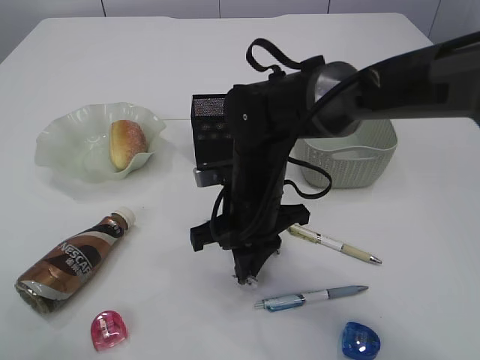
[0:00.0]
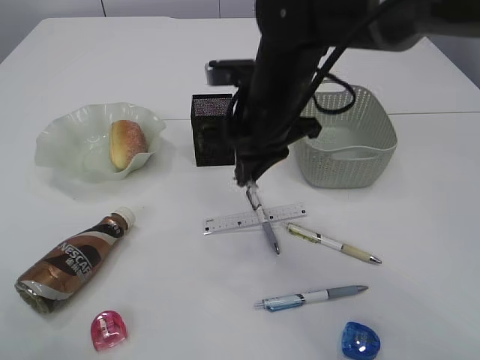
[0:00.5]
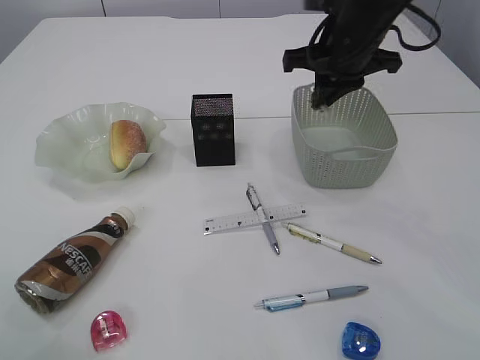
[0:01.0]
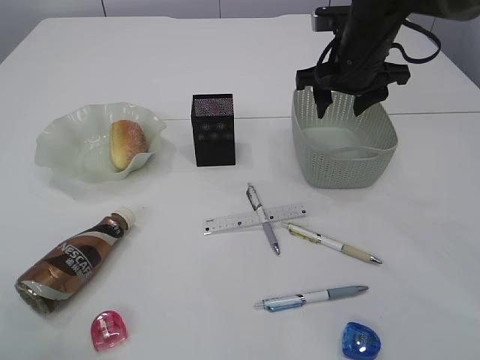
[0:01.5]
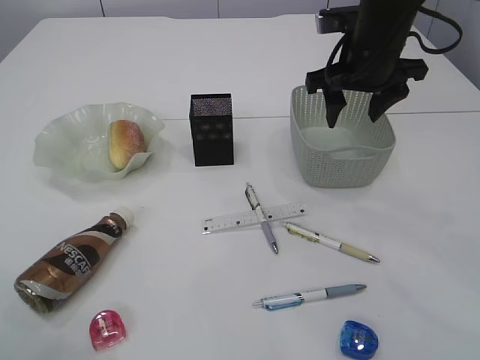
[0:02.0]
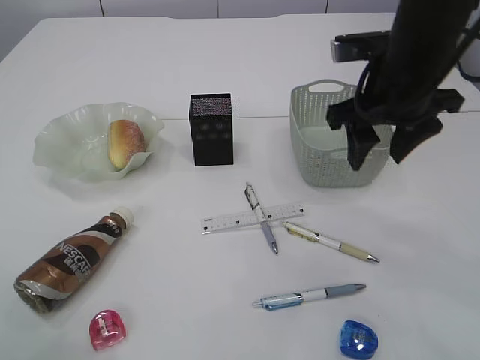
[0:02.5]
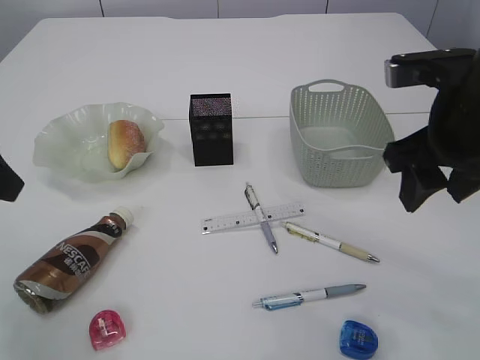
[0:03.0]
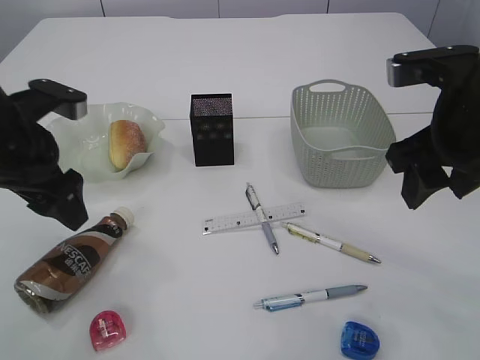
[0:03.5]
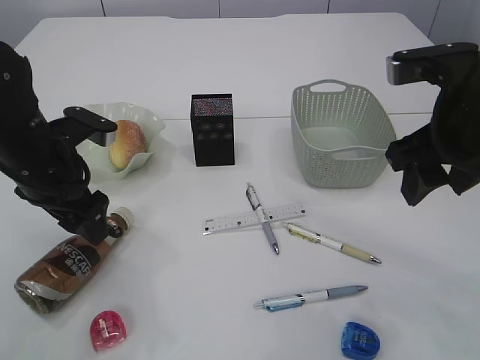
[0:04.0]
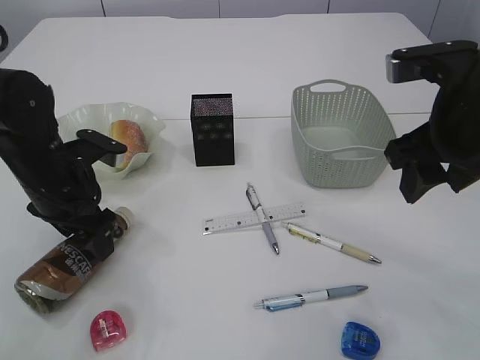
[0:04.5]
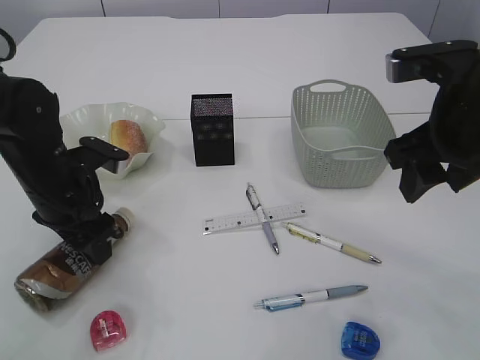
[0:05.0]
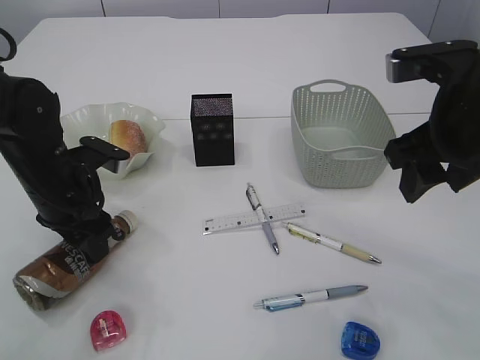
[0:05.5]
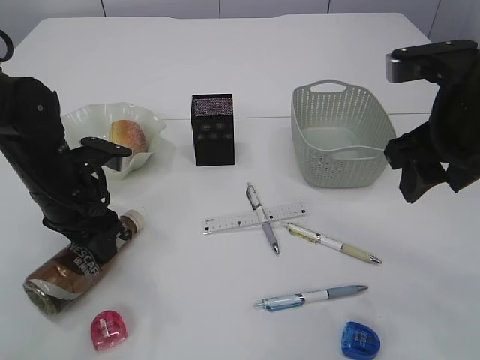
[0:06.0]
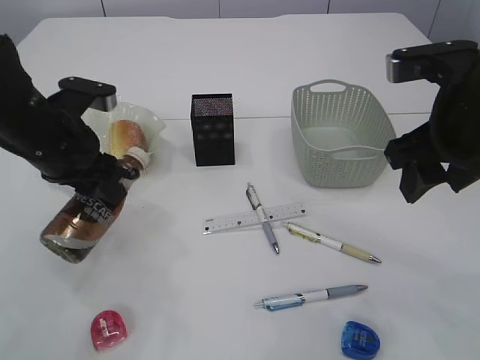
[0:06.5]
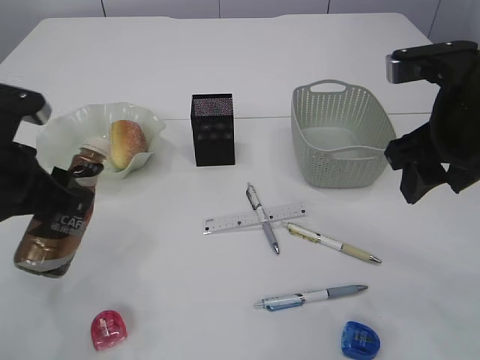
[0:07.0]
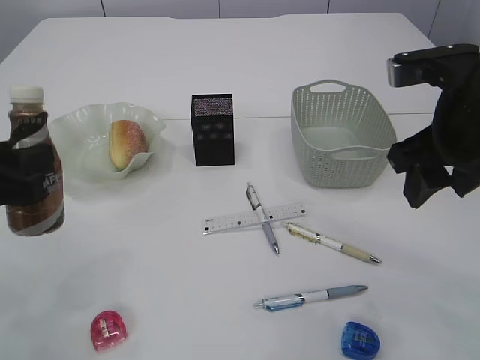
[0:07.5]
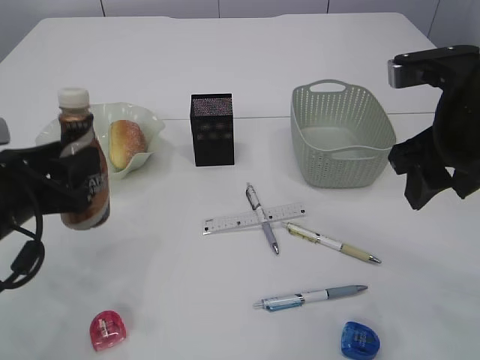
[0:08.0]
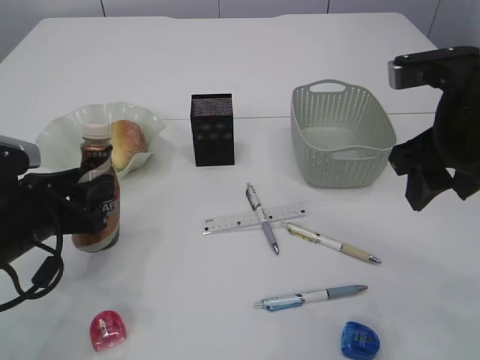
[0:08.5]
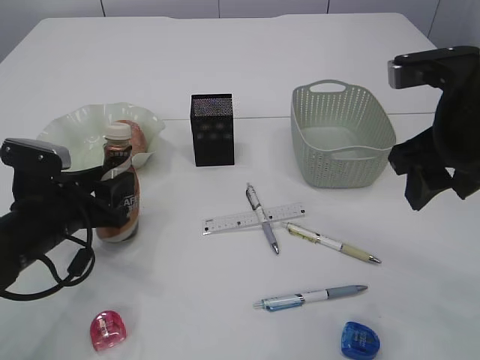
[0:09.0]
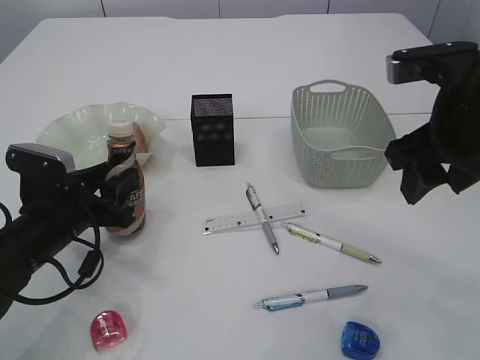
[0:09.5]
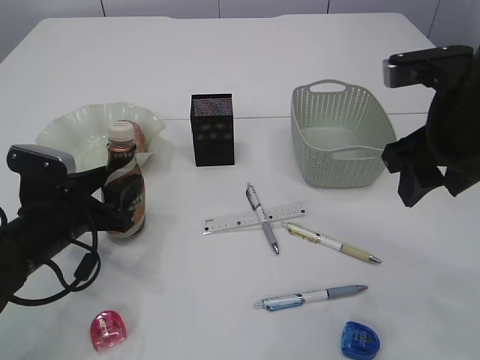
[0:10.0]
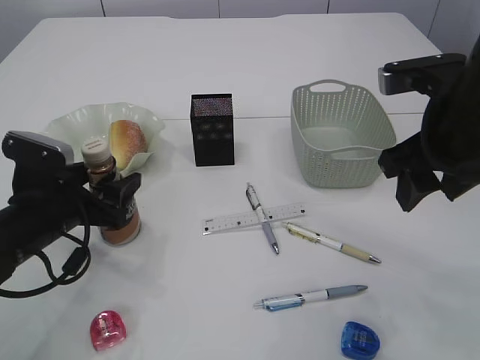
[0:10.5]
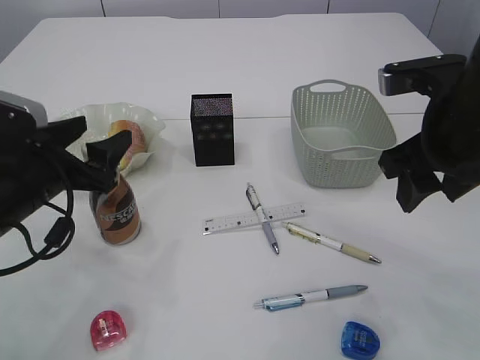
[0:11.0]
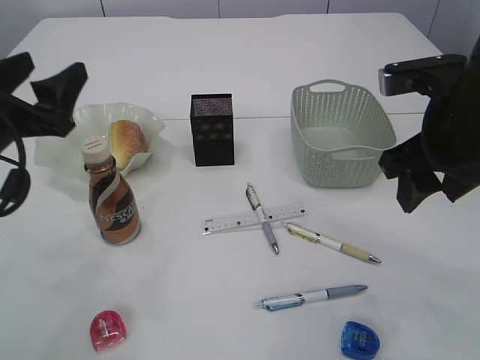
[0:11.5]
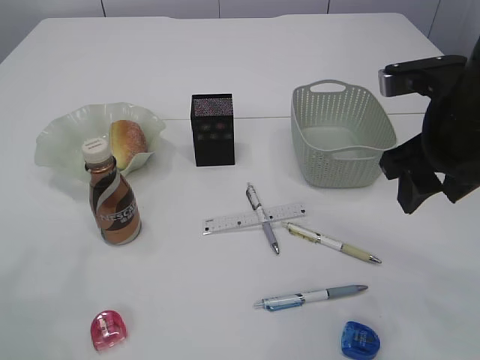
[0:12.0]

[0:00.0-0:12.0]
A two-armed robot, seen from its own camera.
Step, 0:01.0 to 0:02.0: Place the waste paper in the basket.
Step, 0:02.5 to 0:06.5: Pick up the bottle with the left arm.
Step, 0:07.0 to 0:11.0: Place the bottle.
0:00.0 to 0:02.0: The right gripper shifts approximately 20 cm to the right, upward and forward, and opens up.
0:02.0 to 0:04.0: The right gripper goes some 15 cm backward, while the left gripper goes about 20 cm downward and forward, and opens its fingers.
0:04.0 to 0:06.0: The left gripper closes up.
0:06.0 to 0:08.0: The left gripper travels backward by about 10 cm.
0:08.0 to 0:10.0: The left gripper goes approximately 5 cm downward, and opens up.
0:10.0 to 0:12.0: The left gripper heads upward and to the left, covering approximately 20 cm.

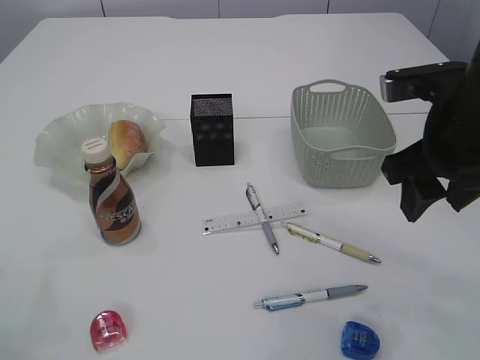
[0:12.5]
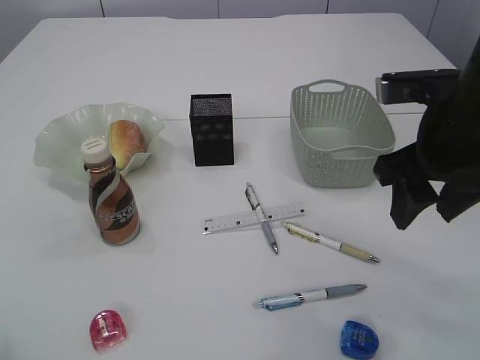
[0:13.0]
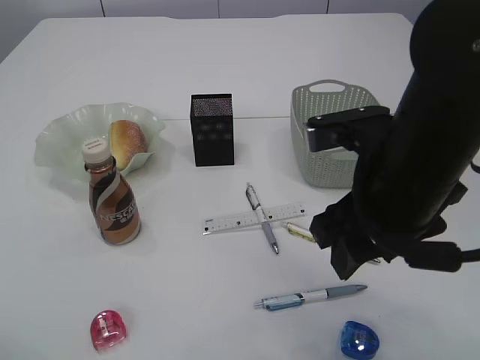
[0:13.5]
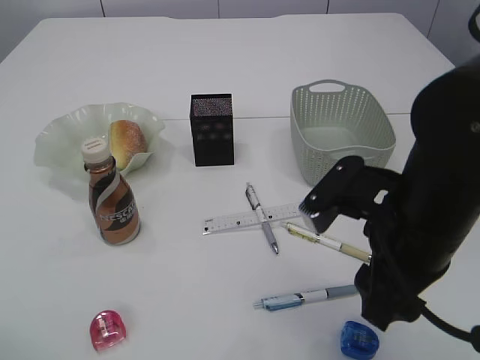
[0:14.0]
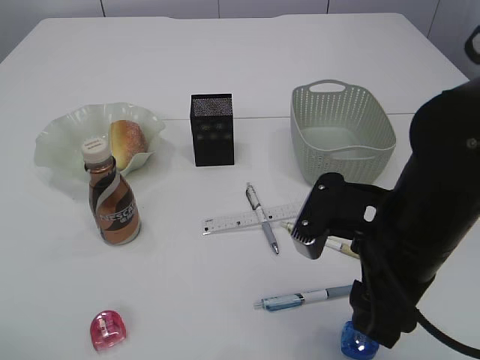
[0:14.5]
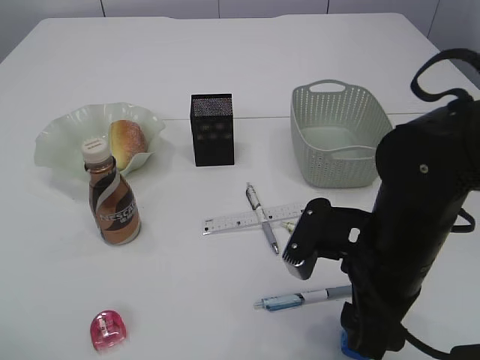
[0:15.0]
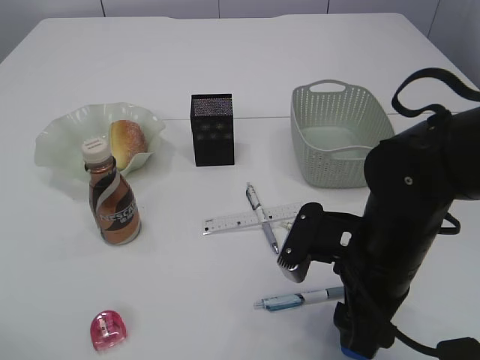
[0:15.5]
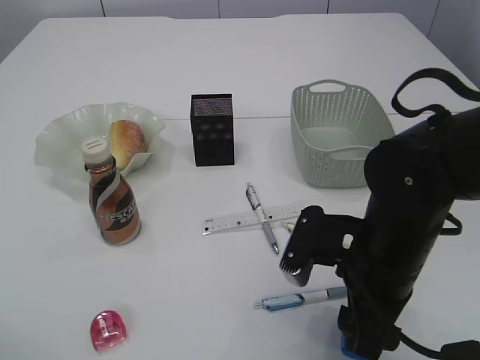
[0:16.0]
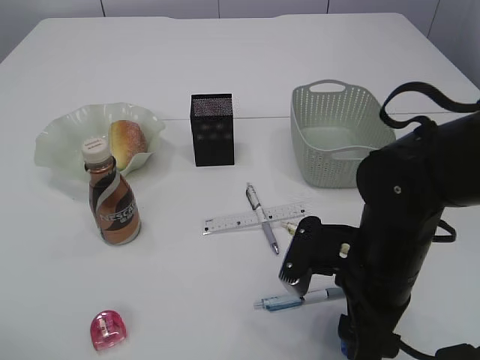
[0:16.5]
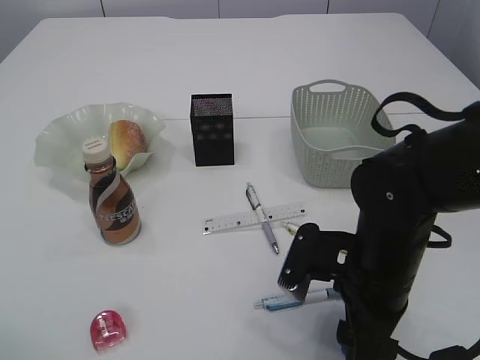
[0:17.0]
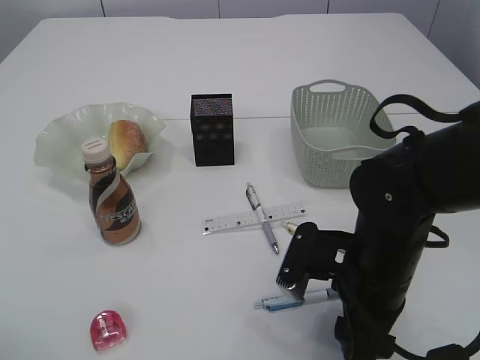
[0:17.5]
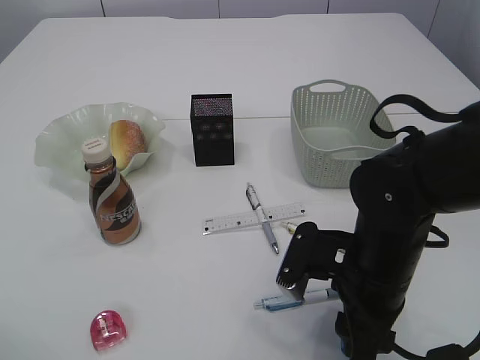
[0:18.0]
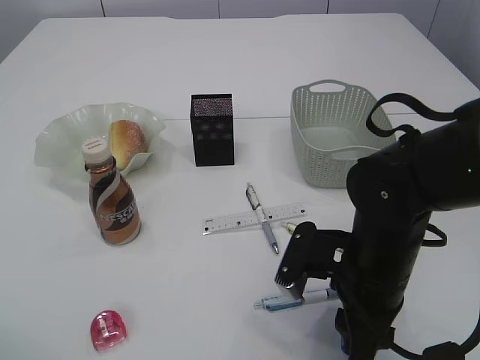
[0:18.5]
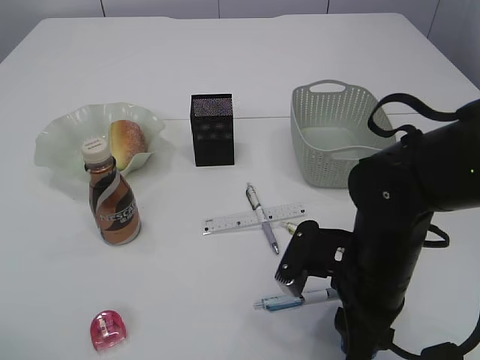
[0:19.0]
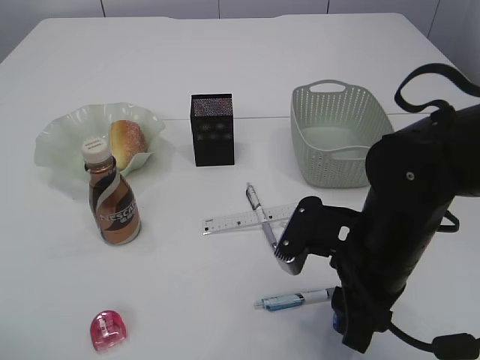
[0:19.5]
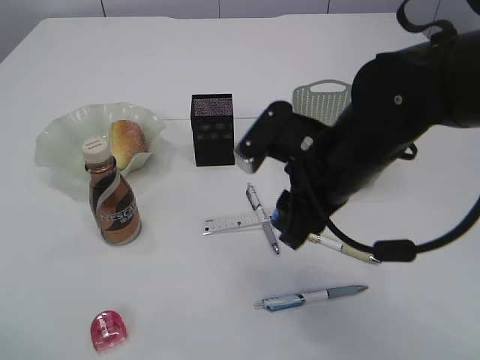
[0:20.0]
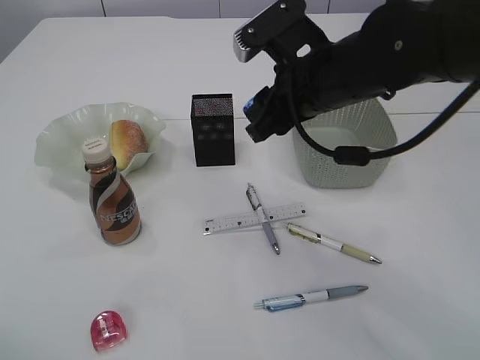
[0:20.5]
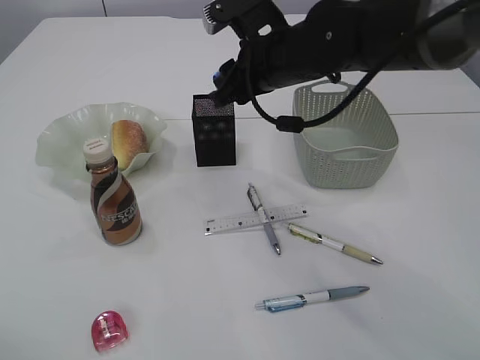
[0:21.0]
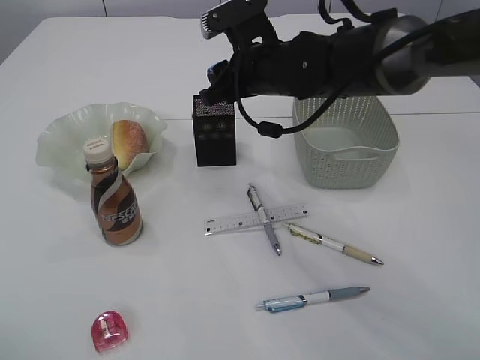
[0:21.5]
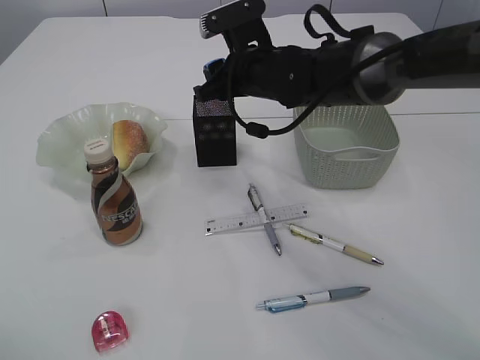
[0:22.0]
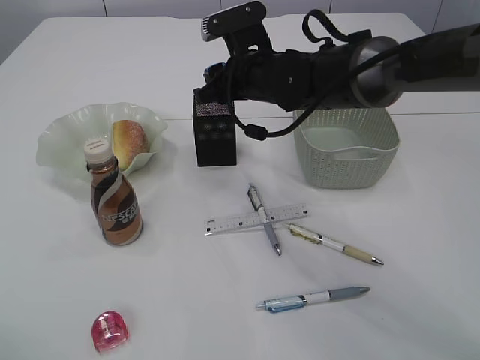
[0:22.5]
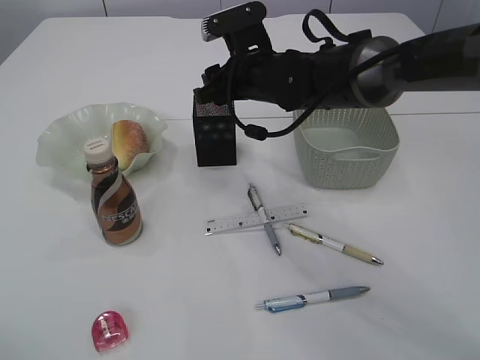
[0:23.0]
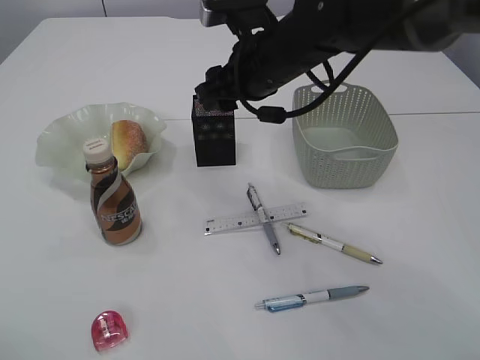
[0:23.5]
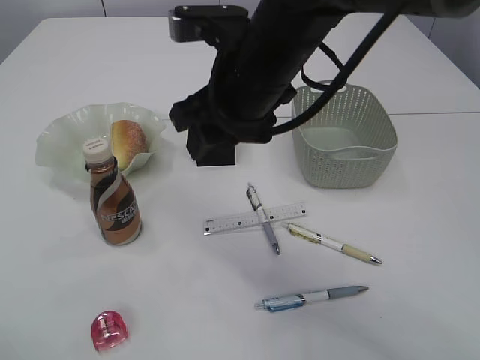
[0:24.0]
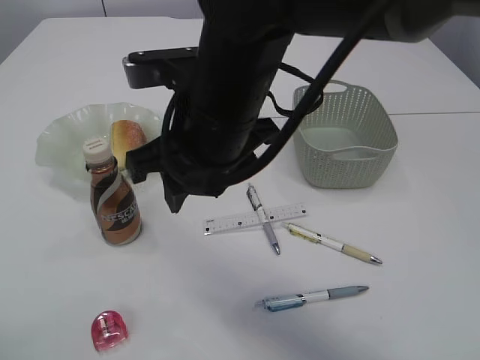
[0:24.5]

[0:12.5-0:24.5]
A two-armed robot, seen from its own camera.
Step, 0:12.5 to 0:19.5: Pick up the blue pencil sharpener.
Step, 0:20.0 to 0:23.5: Place the blue pencil sharpener into the pen holder.
0:12.5 to 0:14.5: The left gripper shifts roughly 5 cm backward. The right gripper heads downward, to the left and backward, covering some 10 cm.
0:14.5 to 0:16.5: The right gripper travels downward by about 5 cm.
0:16.5 to 0:18.5: The right gripper closes.
0:18.5 to 0:20.5: The right gripper goes about 20 cm upward and forward.
0:20.5 to 0:22.5: The right gripper goes some 10 cm forward.
0:22.5 to 0:24.5: The right gripper goes some 20 cm backward and upward.

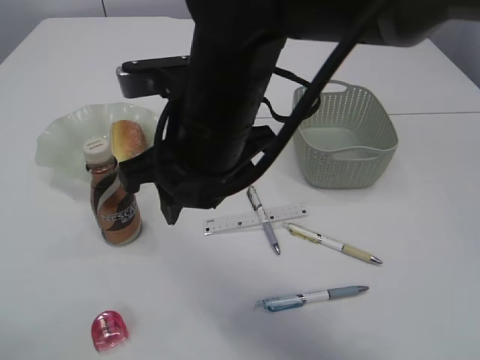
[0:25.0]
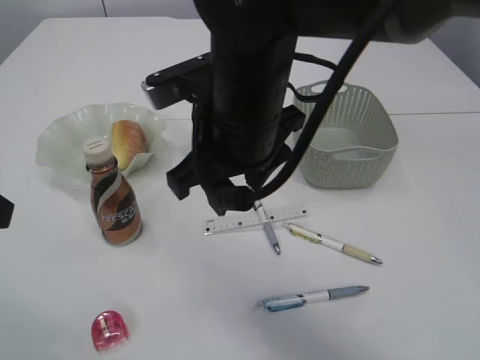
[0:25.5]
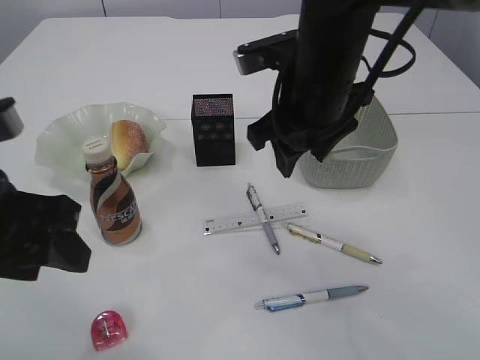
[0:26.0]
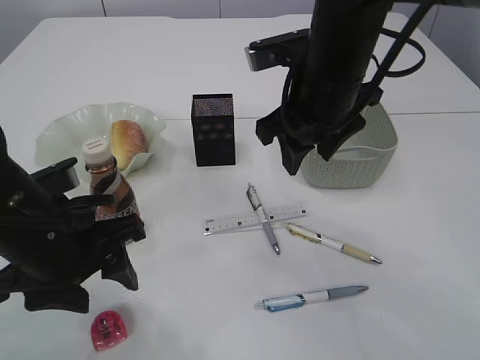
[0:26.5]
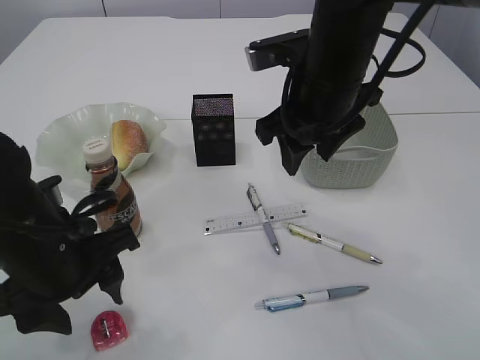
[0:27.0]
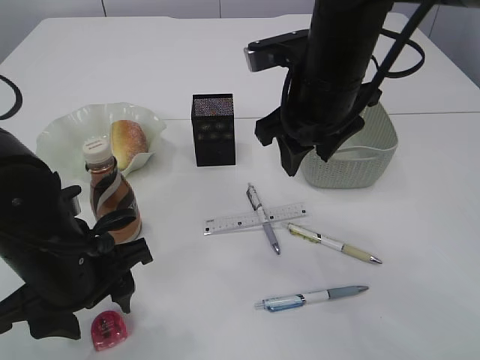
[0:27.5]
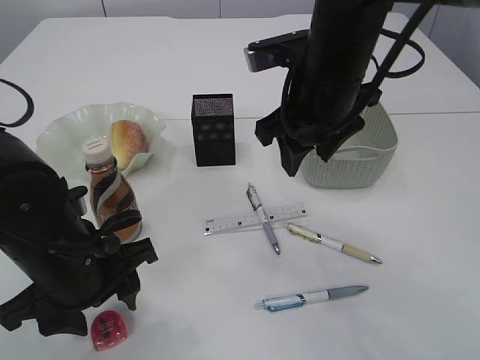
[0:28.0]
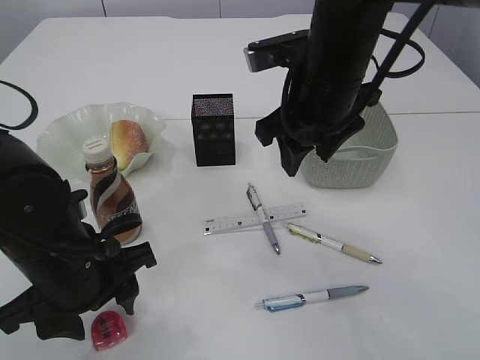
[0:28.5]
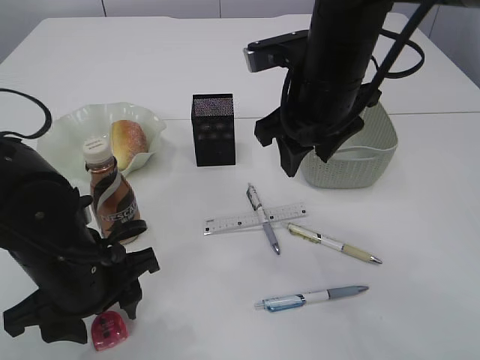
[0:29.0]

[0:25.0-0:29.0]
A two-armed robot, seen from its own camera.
0:25.0 to 0:27.0: The left gripper goes approximately 20 cm to the right and downward, while the right gripper shifts roughly 15 cm to the right and forward.
0:27.0 to 0:29.0: The grippers stay close to where they were, moving slightly.
